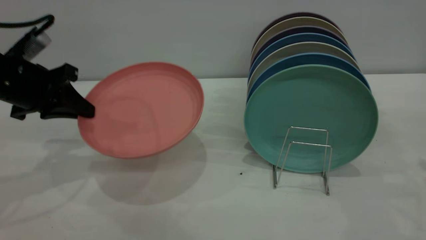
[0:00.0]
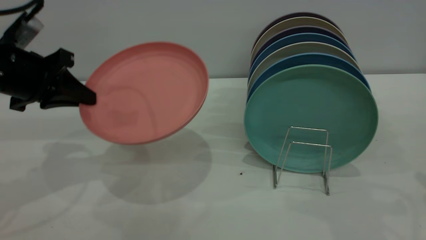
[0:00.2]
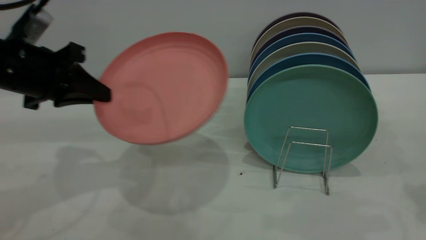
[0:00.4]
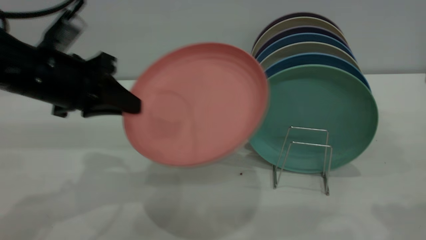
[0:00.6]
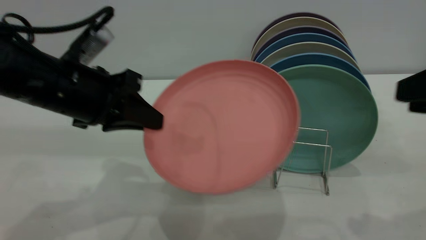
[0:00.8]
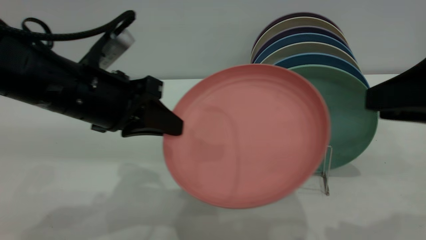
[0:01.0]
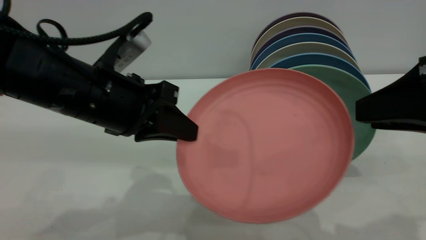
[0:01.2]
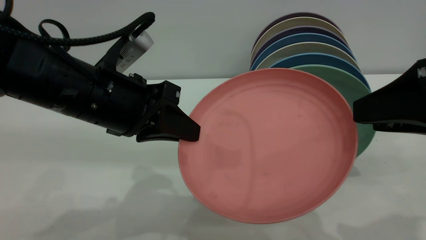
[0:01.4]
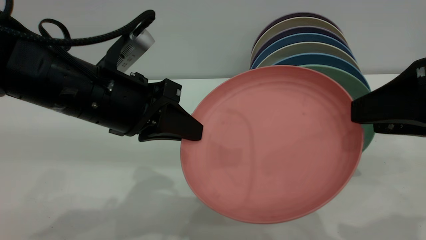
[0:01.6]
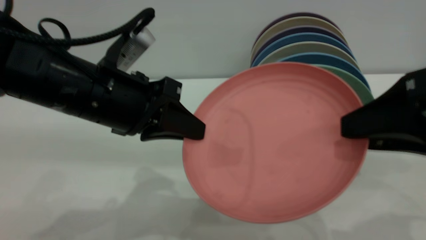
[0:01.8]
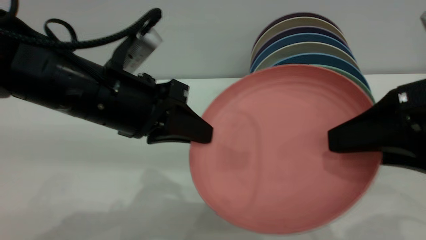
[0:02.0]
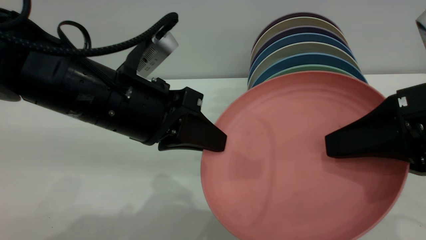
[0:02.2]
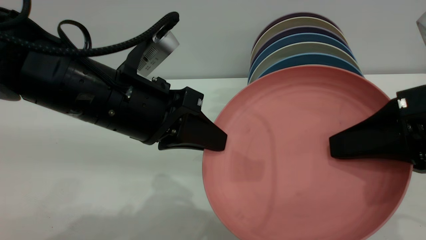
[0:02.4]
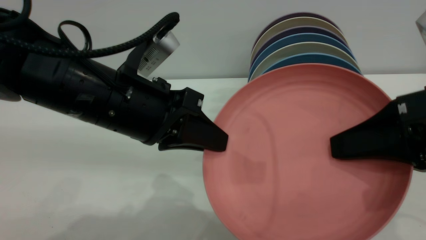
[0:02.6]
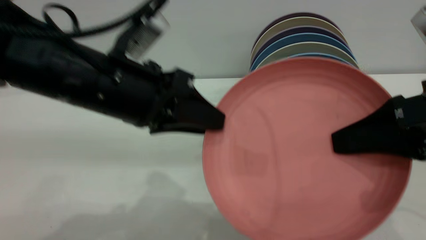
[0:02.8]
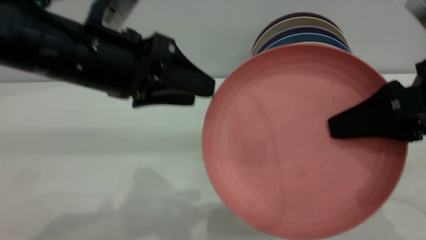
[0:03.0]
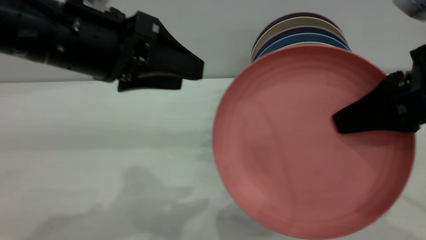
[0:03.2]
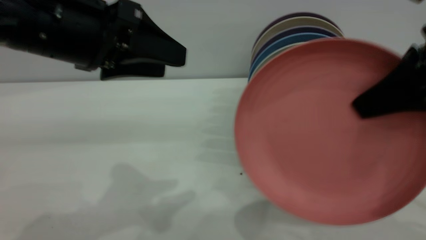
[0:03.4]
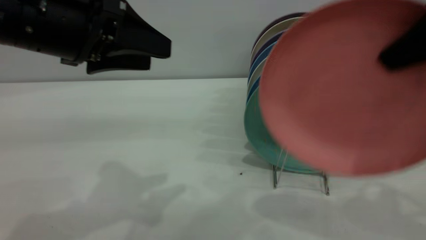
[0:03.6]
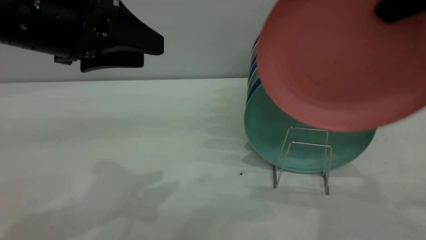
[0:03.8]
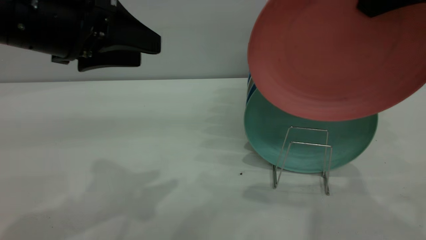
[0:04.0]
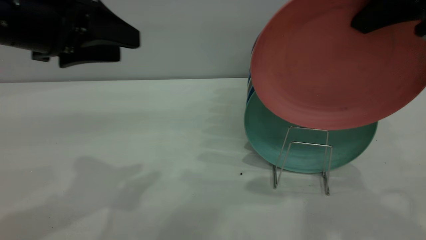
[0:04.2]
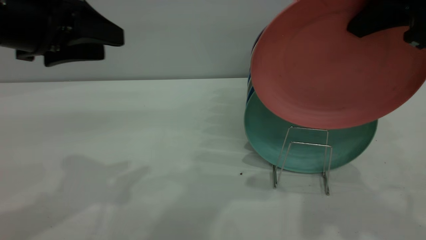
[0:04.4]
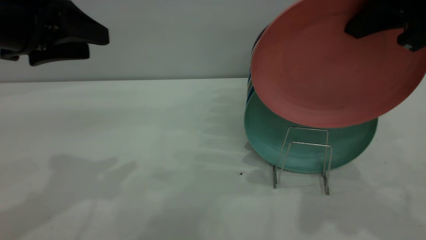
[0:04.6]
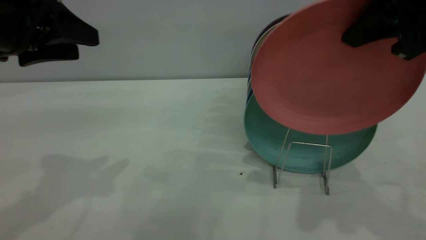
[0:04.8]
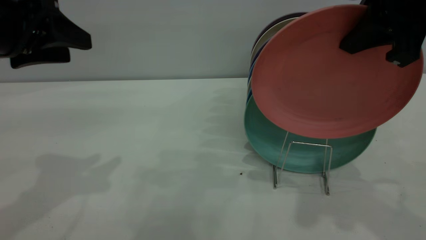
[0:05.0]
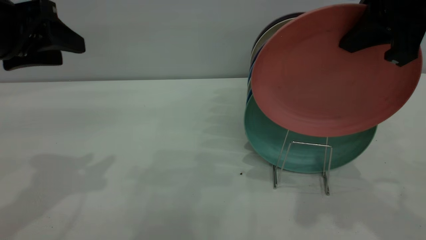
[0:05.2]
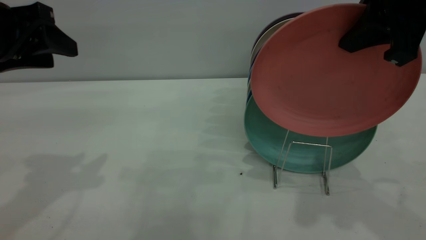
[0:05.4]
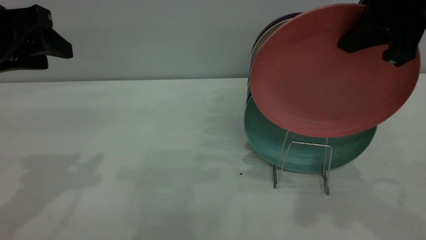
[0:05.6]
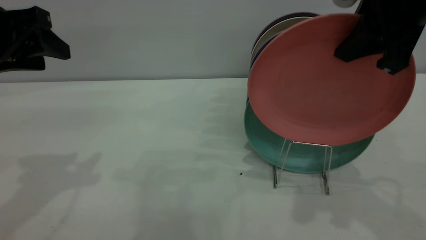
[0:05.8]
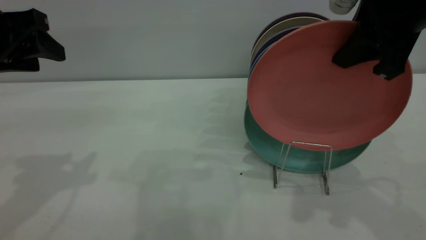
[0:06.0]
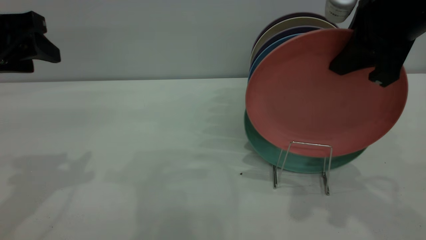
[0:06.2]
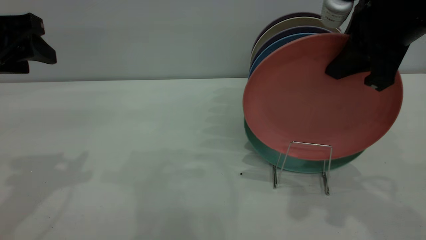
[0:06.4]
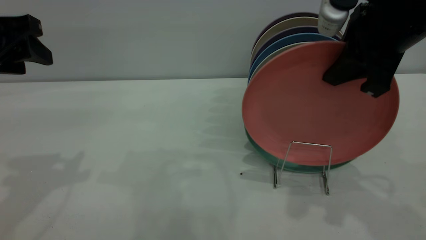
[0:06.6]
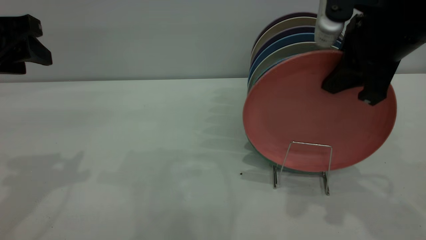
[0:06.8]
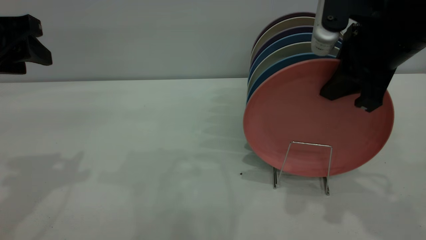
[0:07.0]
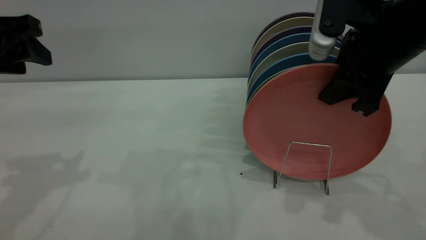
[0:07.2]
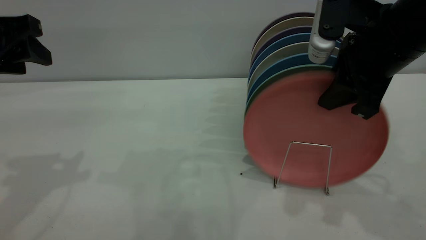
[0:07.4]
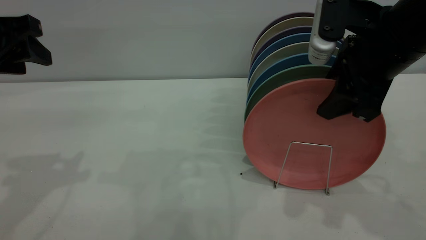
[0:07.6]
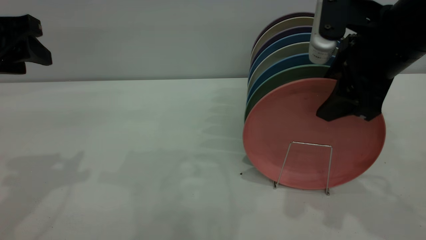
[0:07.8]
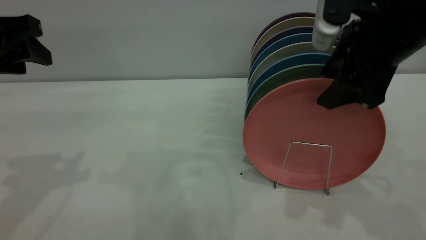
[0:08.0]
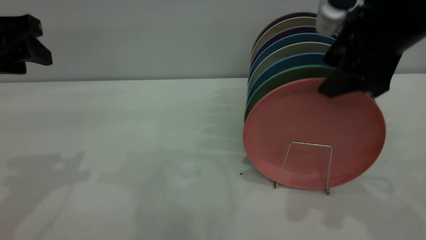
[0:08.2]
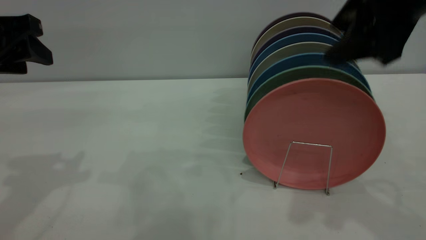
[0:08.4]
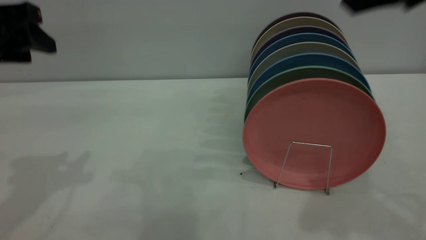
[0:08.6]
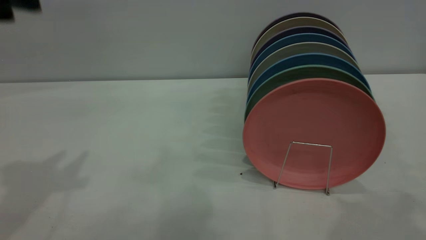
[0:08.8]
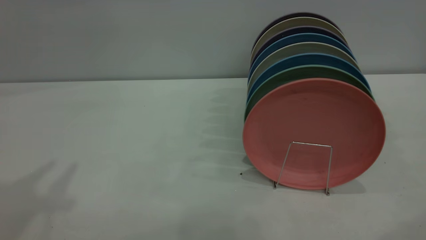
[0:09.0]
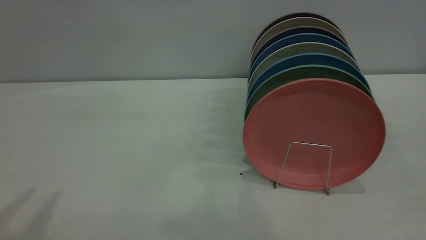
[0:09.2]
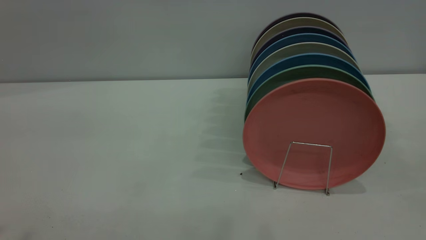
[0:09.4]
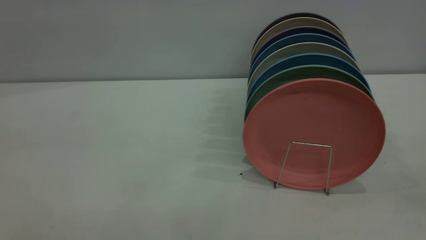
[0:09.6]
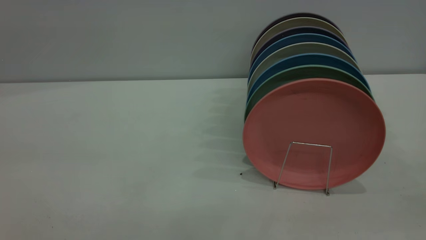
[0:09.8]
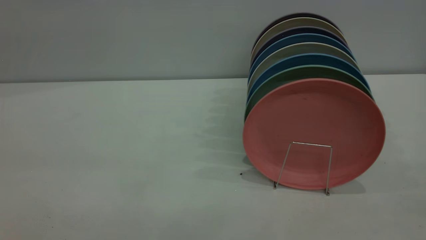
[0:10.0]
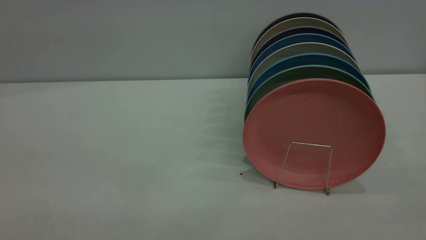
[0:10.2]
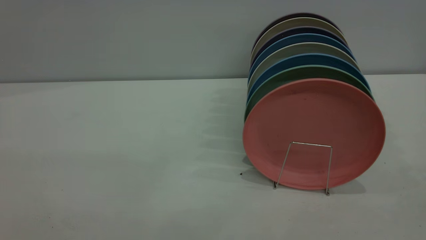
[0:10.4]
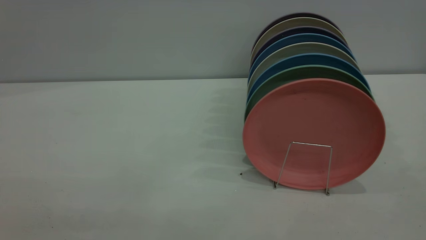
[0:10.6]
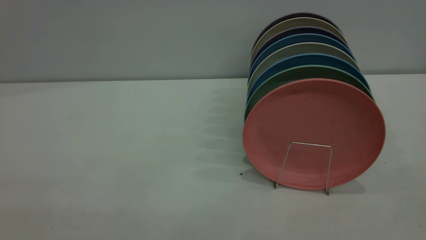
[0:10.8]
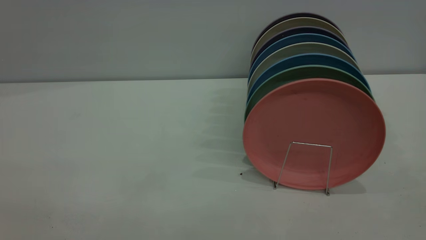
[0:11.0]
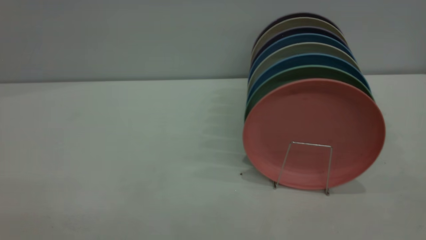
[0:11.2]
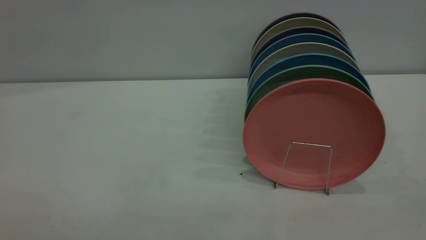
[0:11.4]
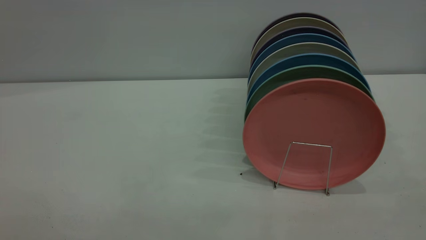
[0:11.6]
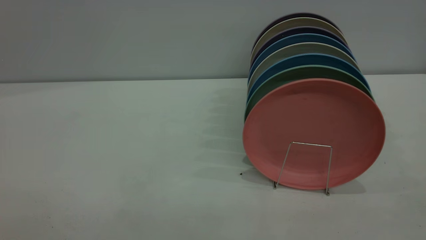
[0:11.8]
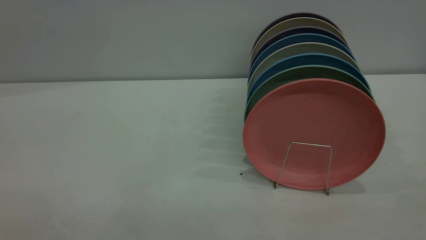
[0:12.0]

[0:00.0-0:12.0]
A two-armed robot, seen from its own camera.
Task of the whole recording: put the plate on the plate rack.
Step, 0:00.0 to 0:03.2: Pass the plate from the left gripper to the right gripper.
Step, 0:03.4 to 0:08.4: Place the plate on the shelf.
0:00.0 to 0:01.6: The left gripper shifts roughly 15 cm to the right and backward, while the right gripper travels to the left and backward by approximately 20 cm, and opens.
0:01.6 to 0:03.0: The right gripper closes its fingers. Meanwhile the left gripper travels upward by roughly 5 cm, and opens.
0:03.0 to 0:04.4: The left gripper is displaced to the left by approximately 10 cm. The right gripper travels upward and forward by roughly 10 cm.
0:04.4 to 0:06.0: The left gripper goes about 5 cm to the left.
0:06.0 to 0:07.6: The right gripper moves downward, about 5 cm, and opens its fingers.
0:07.6 to 0:09.0: The left gripper heads upward and backward, covering approximately 15 cm. The right gripper goes some 25 cm upward, backward and to the right.

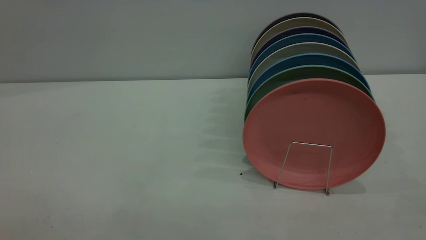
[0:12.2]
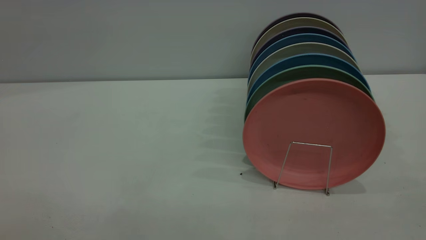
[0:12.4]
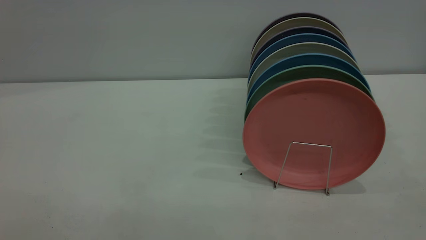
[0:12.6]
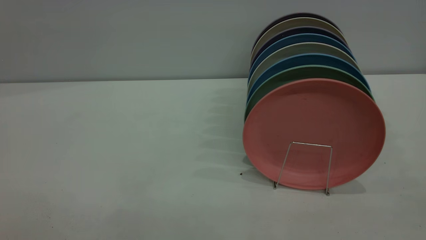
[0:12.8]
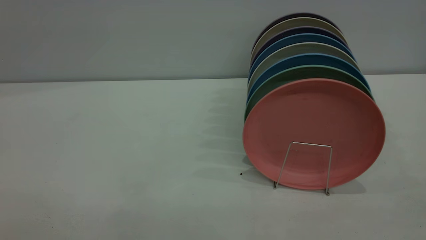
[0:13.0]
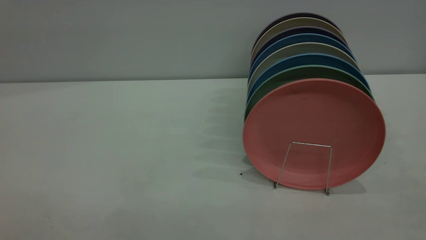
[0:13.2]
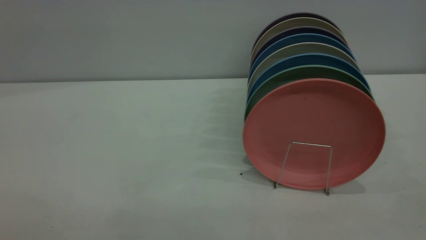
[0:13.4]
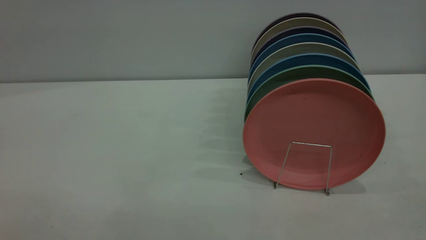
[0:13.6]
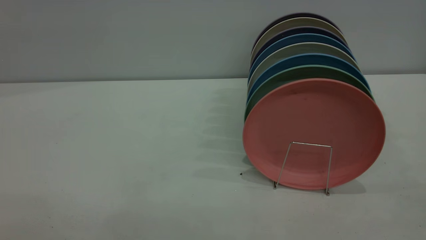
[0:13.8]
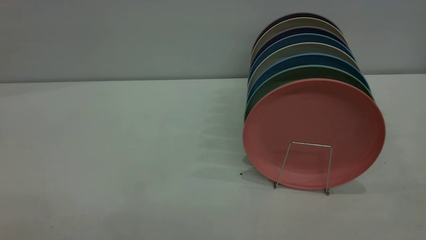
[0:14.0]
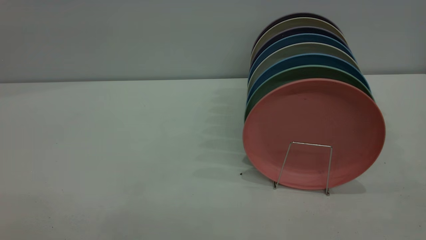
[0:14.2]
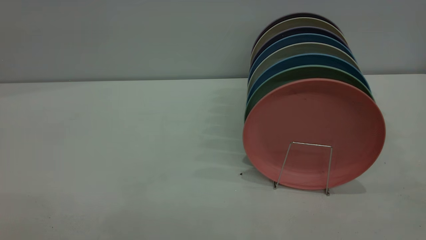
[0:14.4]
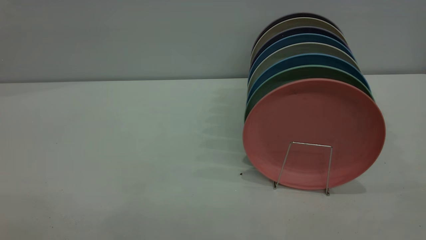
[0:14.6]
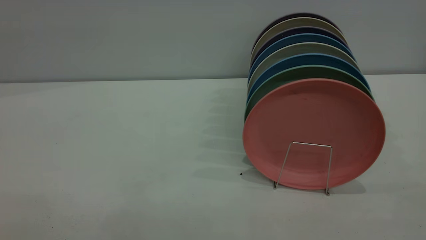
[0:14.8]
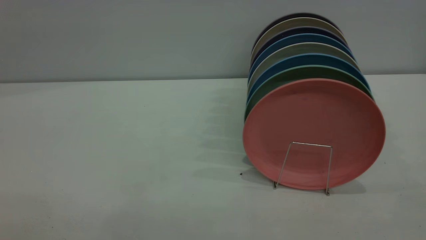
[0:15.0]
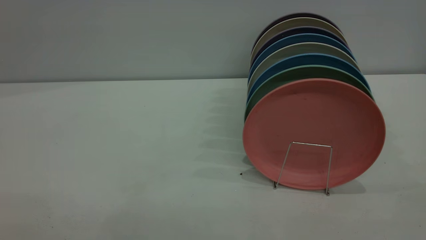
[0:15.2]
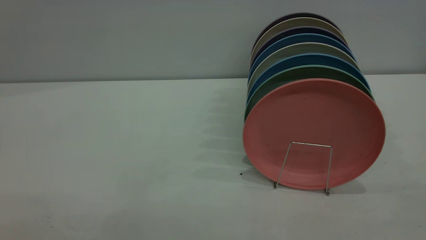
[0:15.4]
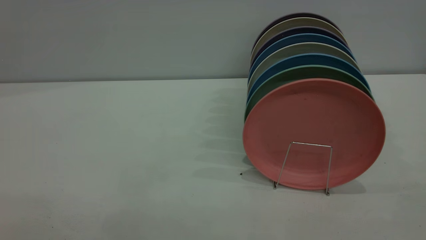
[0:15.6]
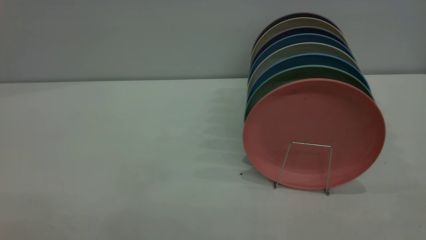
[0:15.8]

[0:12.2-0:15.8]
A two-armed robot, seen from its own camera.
Task of the whole recording: put the plate on the plate rack.
0:14.0 to 0:15.8: The two grippers keep their place.
